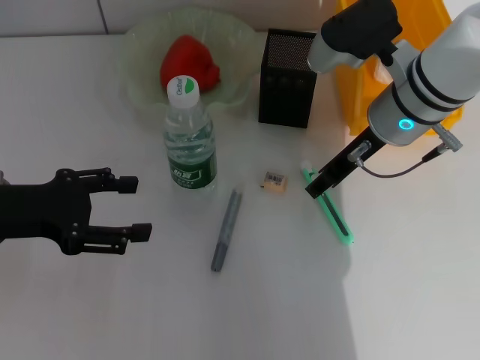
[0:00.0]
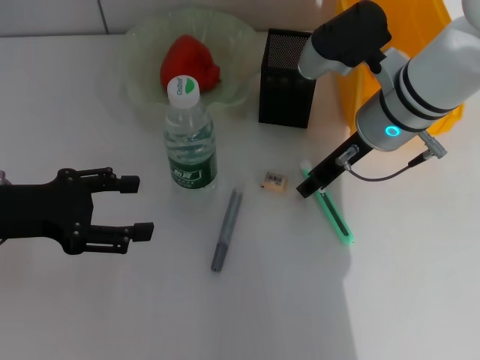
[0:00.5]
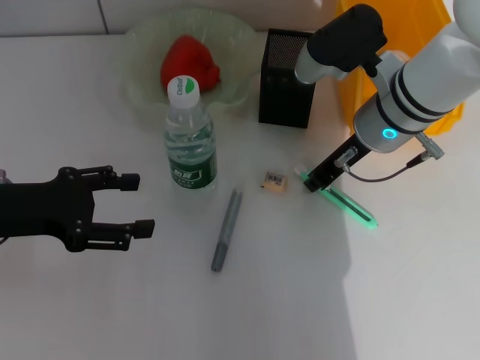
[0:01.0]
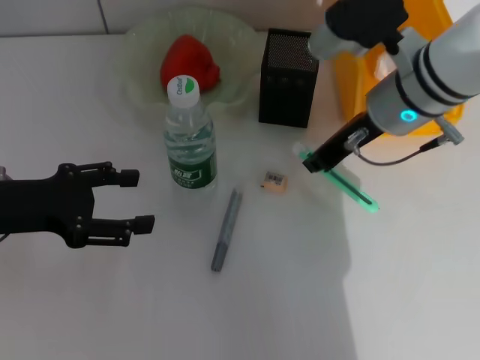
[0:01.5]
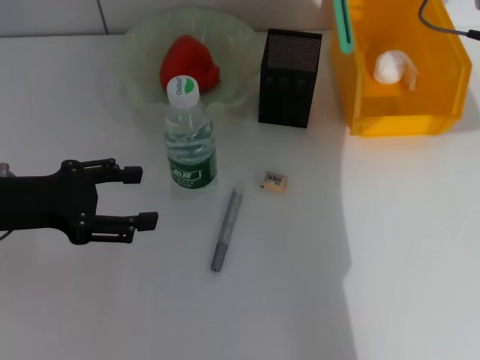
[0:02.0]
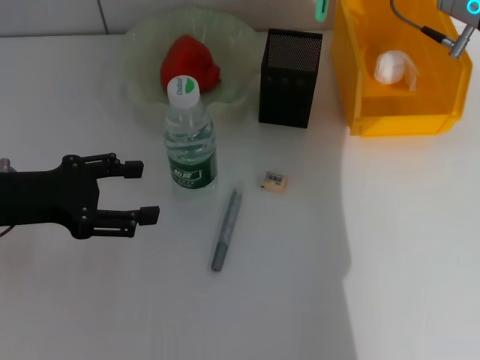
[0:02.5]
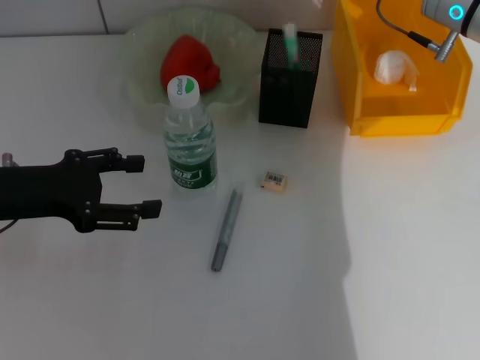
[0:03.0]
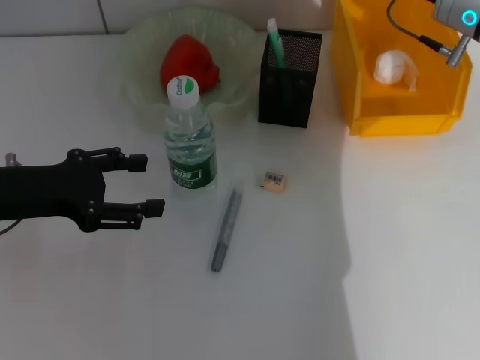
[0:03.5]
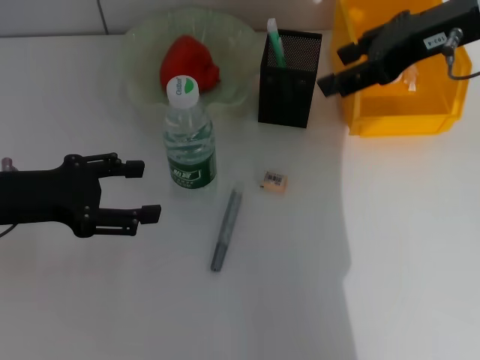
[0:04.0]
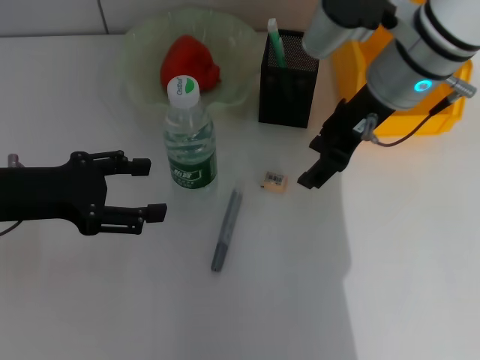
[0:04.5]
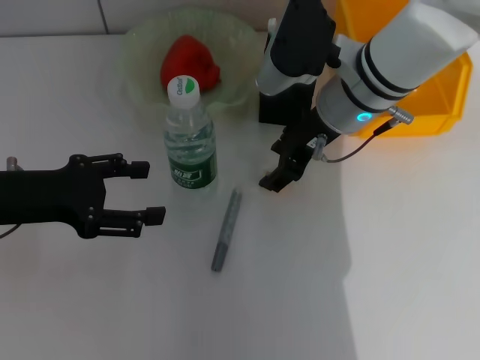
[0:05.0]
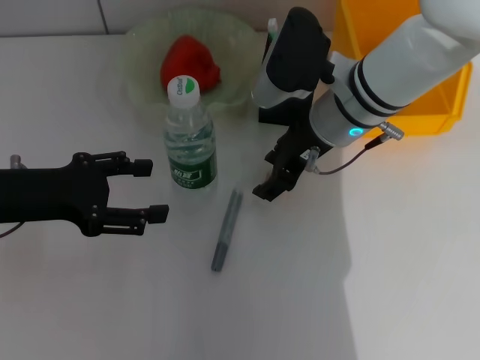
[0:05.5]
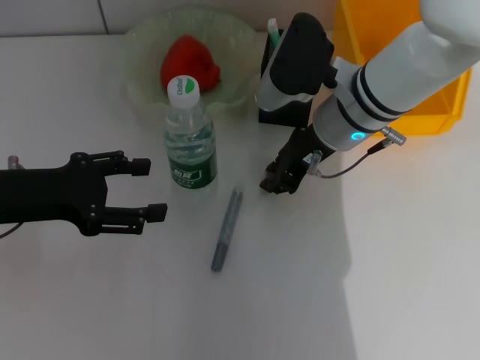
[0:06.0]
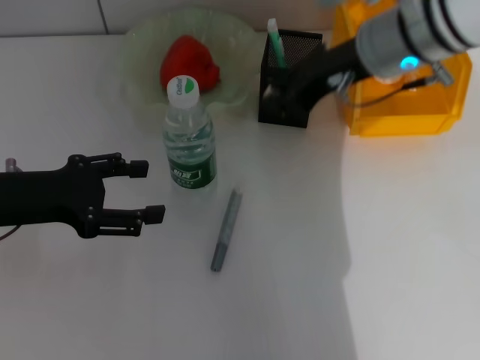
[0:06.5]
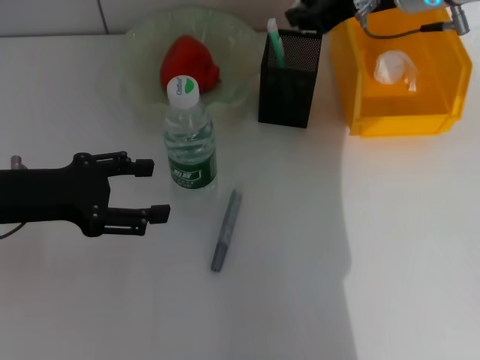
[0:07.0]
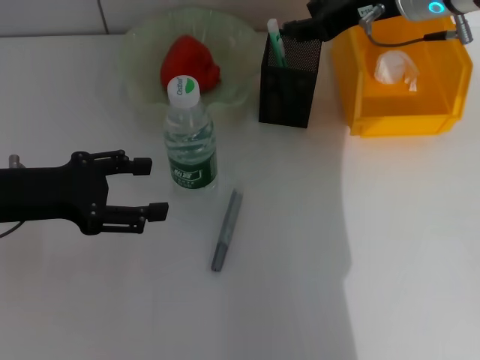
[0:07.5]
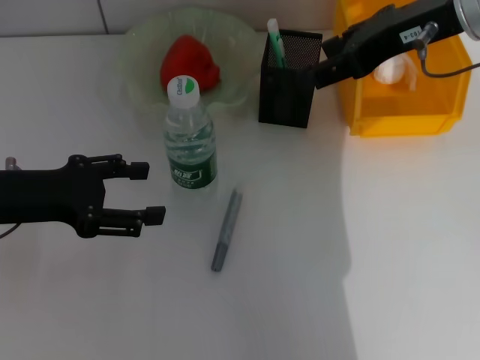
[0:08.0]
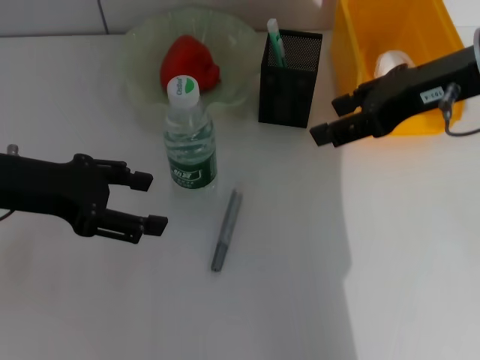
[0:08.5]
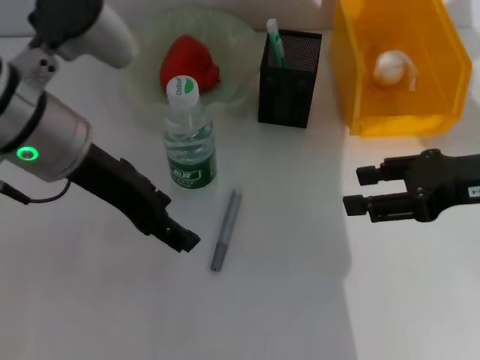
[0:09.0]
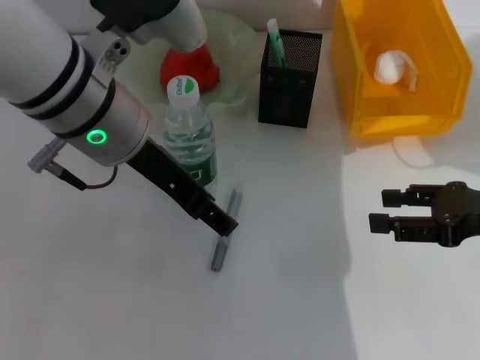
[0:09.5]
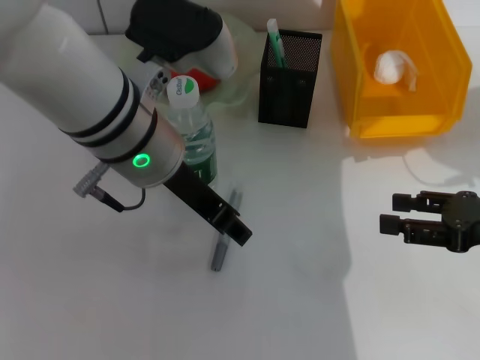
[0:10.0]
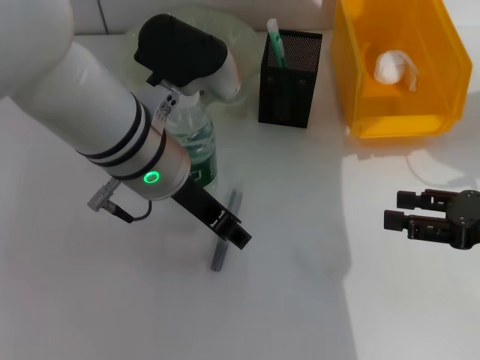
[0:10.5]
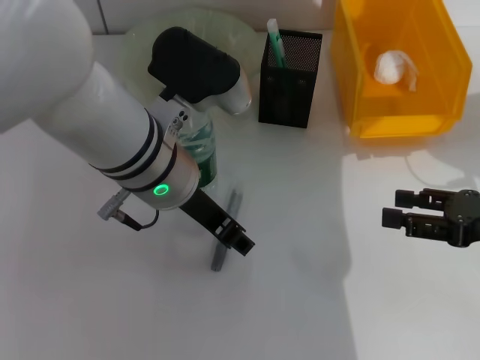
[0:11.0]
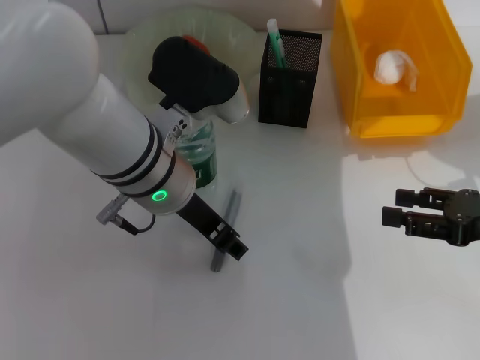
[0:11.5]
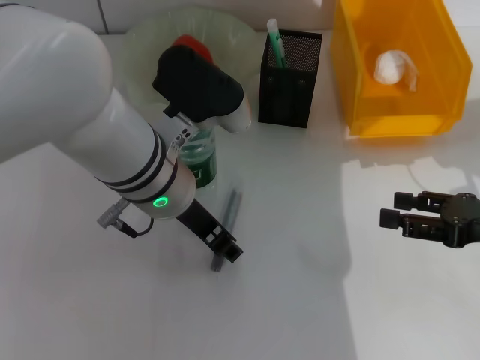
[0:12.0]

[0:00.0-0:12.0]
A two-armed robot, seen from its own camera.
Step, 0:01.5 to 0:03.0: Place the blue utility knife into the pen holder with the right hand.
Step, 0:03.5 to 0:05.5: Grab the eraser with the right hand.
Step, 0:06.0 to 0:07.0: Put the eraser into the pen holder with the right hand.
0:00.0 to 0:02.0: The right gripper travels upward and to the right by about 10 cm, and closes.
0:02.0 to 0:04.0: The right gripper reaches about 5 cm downward, then returns, and opens its fingers.
0:04.0 to 0:06.0: The right gripper is displaced downward and to the left by roughly 15 cm, and closes its fingers.
0:06.0 to 0:08.0: The right gripper moves upward and to the right, some 15 cm, and opens its fingers.
0:08.0 to 0:10.0: The left gripper travels to the right by approximately 20 cm. The right gripper is displaced downward, to the right and backward by roughly 25 cm.
0:10.0 to 0:12.0: The left gripper travels downward by about 5 cm.

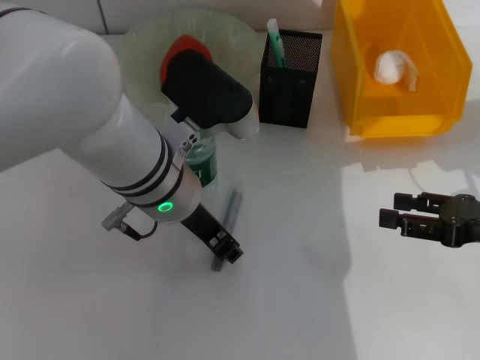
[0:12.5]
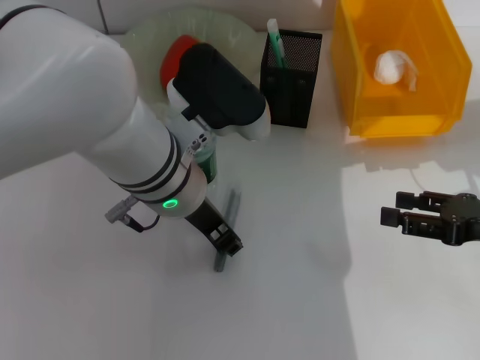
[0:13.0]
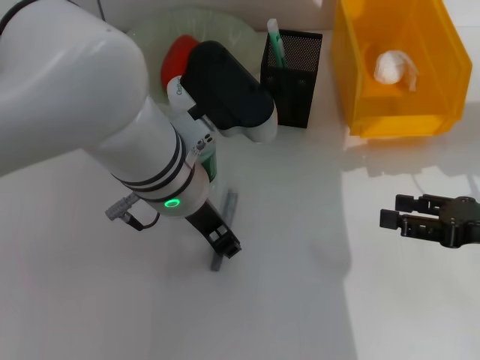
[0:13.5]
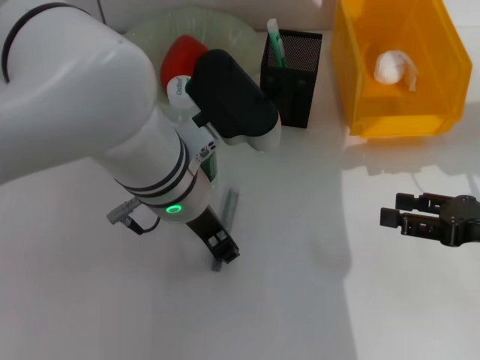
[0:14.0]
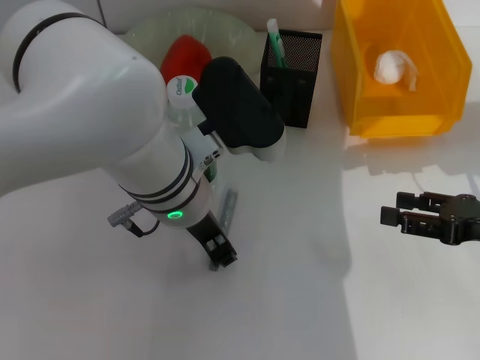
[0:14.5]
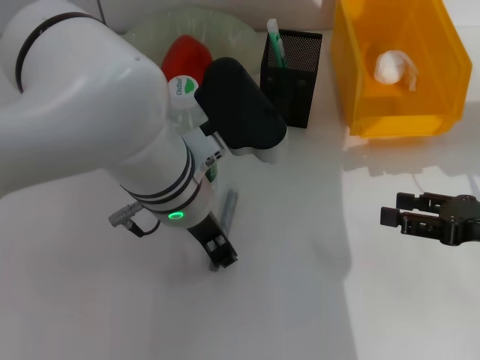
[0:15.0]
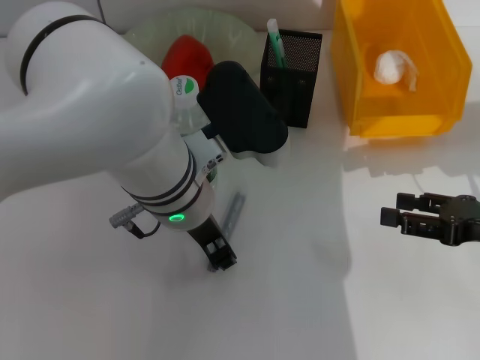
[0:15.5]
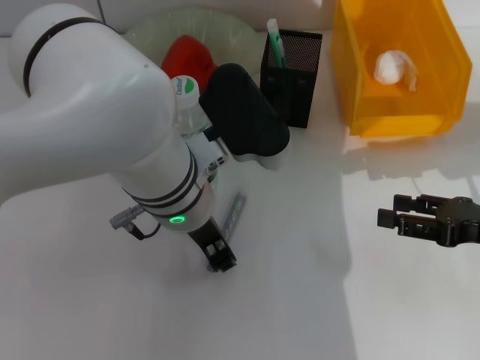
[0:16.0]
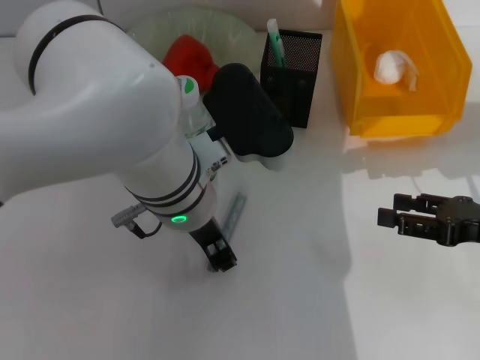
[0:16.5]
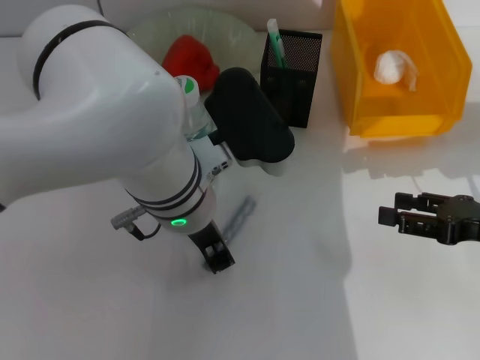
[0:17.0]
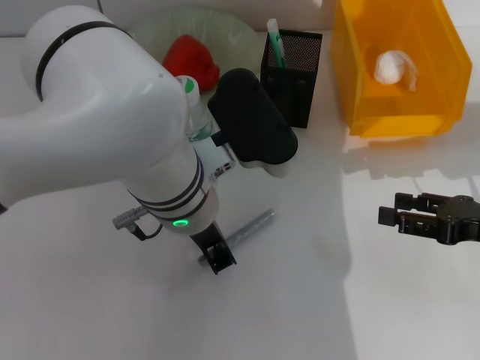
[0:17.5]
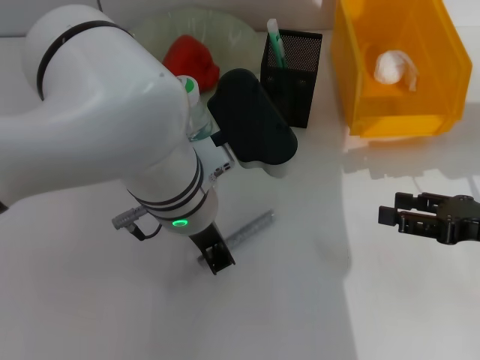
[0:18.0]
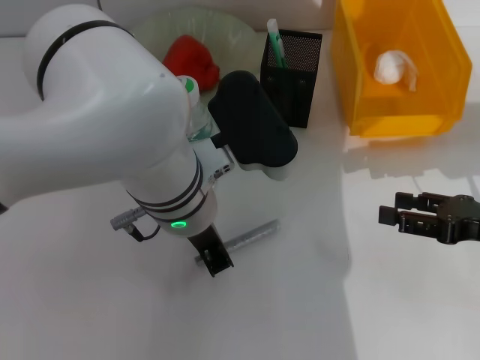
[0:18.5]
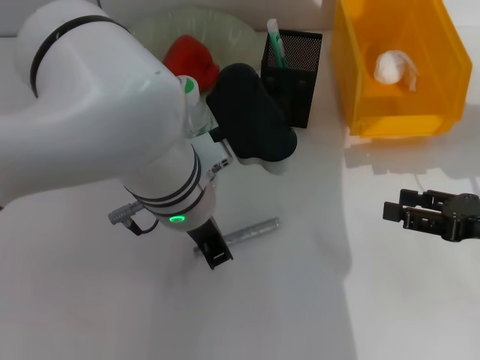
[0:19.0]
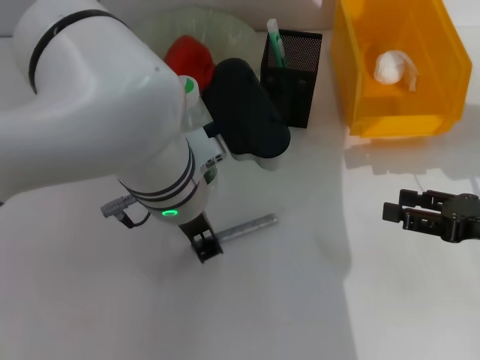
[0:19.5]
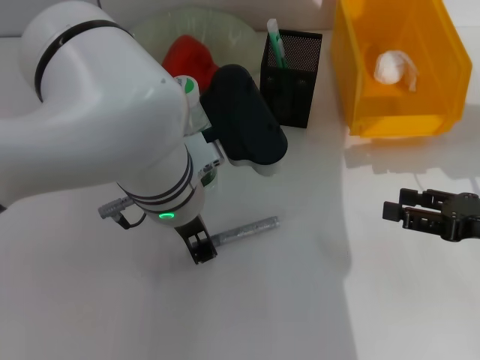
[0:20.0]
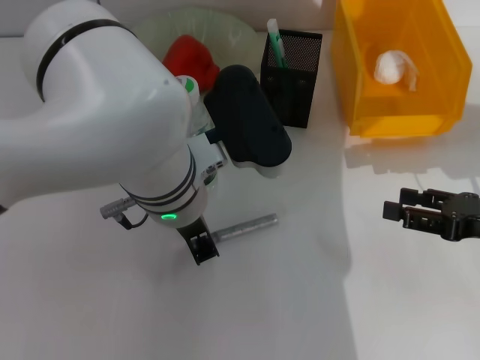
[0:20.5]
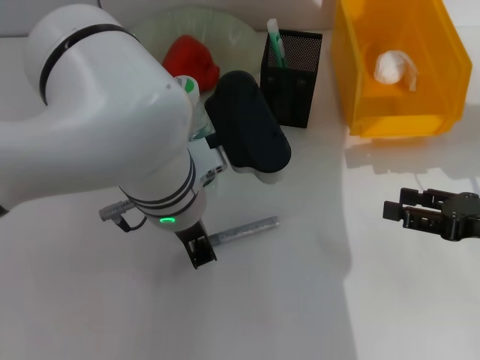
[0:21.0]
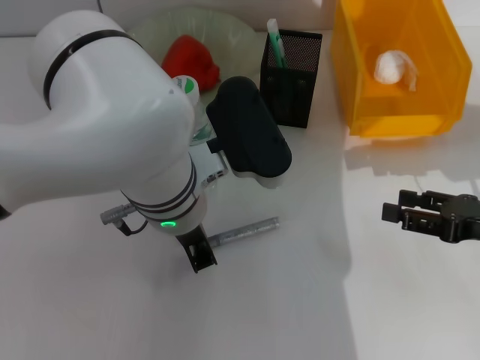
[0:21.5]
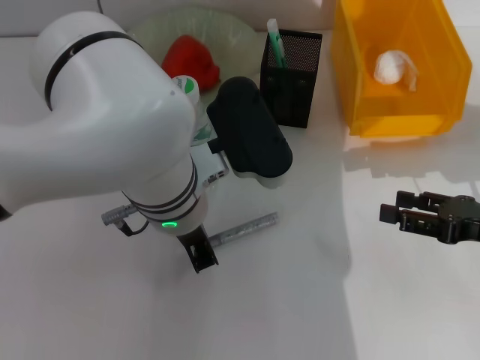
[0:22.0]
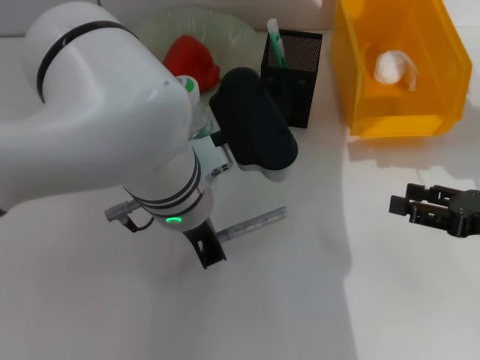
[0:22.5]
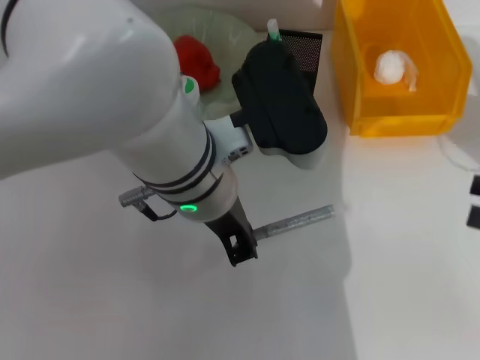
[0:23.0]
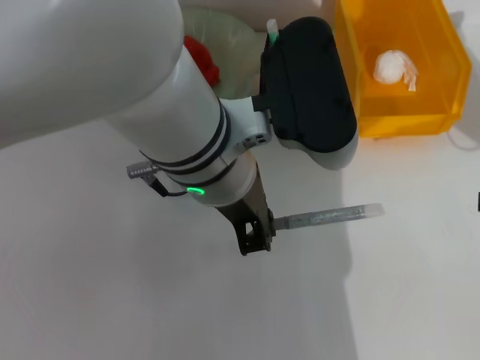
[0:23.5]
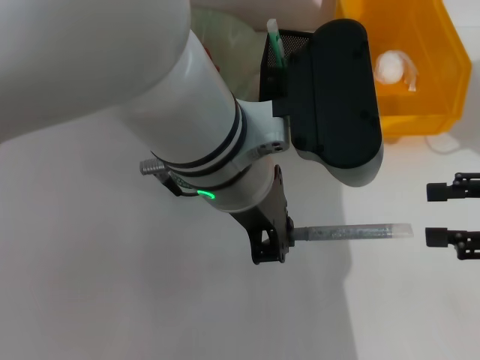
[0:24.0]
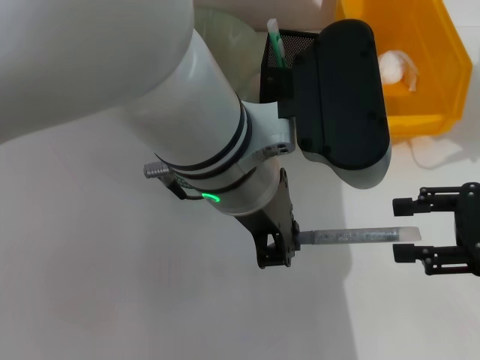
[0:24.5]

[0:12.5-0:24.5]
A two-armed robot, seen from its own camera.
Step, 0:12.5 to 0:22.0: Grab the gray glue with the left hand.
0:12.5 to 0:14.5: The grippers move only a little.
0:14.5 to 0:16.5: Both grippers stay put.
0:16.5 to 0:18.5: The left gripper closes its fingers.
0:18.5 to 0:20.5: The left gripper opens, then closes once more.
0:20.5 to 0:22.5: The two grippers keep their place.
0:22.5 to 0:24.5: The left gripper is displaced upward by about 10 cm, while the right gripper travels upward by some 5 cm.

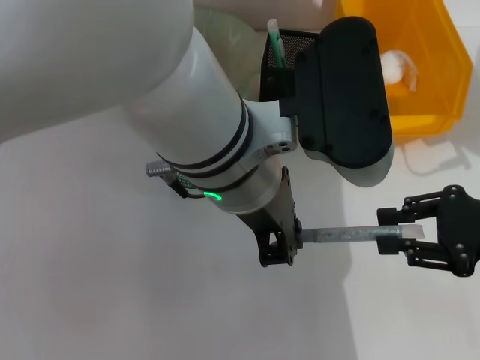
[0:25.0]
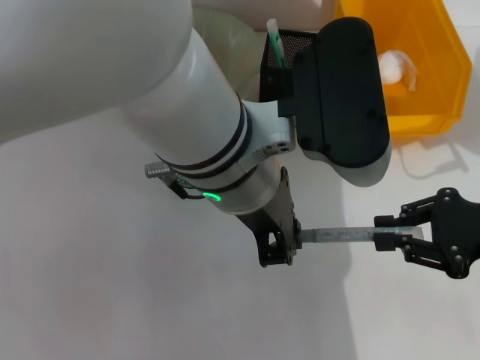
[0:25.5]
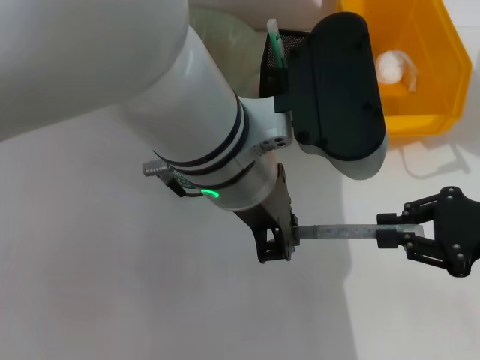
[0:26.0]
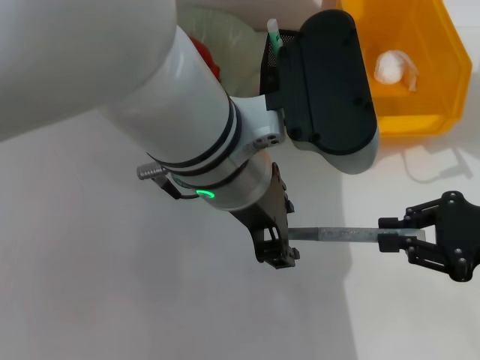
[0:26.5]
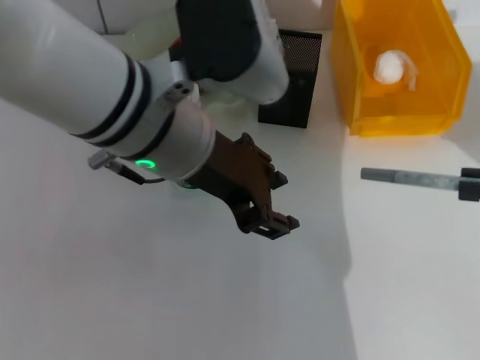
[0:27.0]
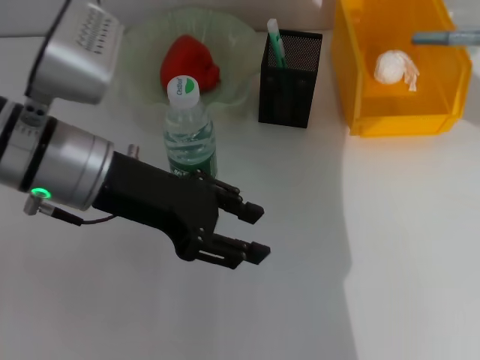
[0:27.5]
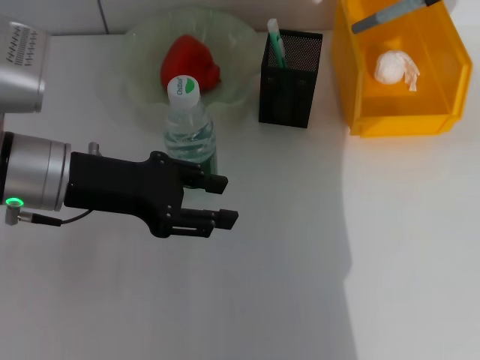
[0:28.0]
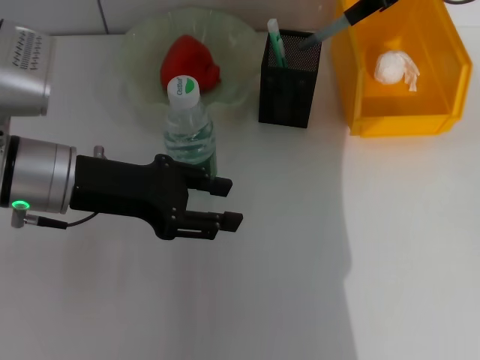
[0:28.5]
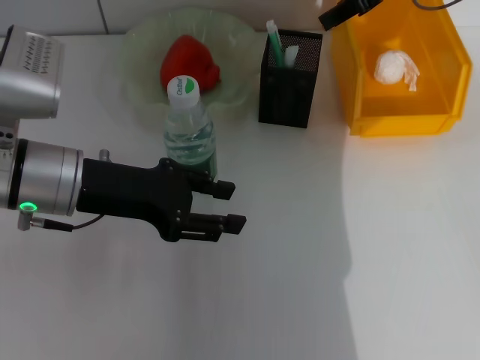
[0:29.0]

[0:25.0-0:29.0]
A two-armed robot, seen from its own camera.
Step, 0:26.5 to 0:29.0: Place the gray glue into the pen holder with the left hand.
0:25.0 to 0:27.0: The left gripper heads to the left, covering roughly 5 cm, and opens its fingers. The right gripper moves to the right, about 5 cm, and closes up.
0:27.0 to 0:29.0: The right gripper moves forward, to the left and upward, about 30 cm. Meanwhile the left gripper is displaced to the left and downward by some 15 cm.
